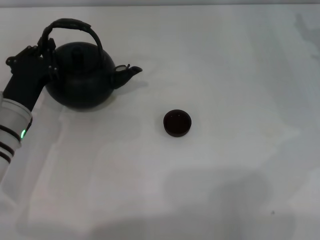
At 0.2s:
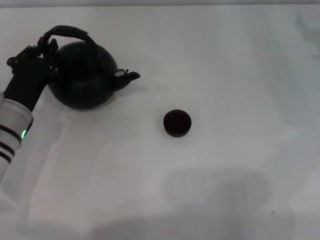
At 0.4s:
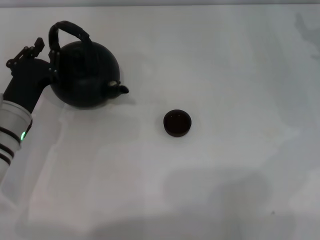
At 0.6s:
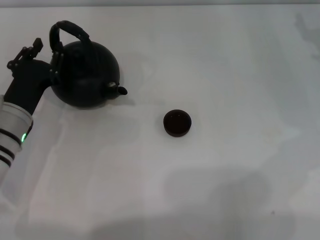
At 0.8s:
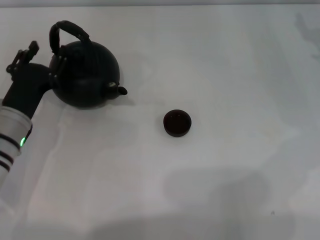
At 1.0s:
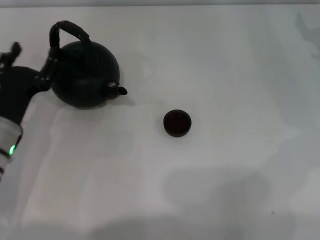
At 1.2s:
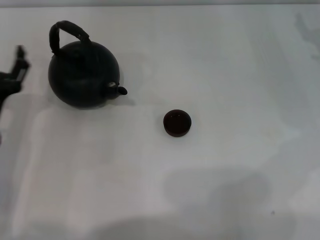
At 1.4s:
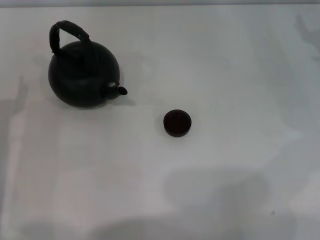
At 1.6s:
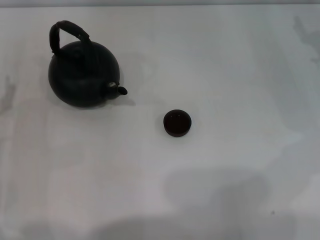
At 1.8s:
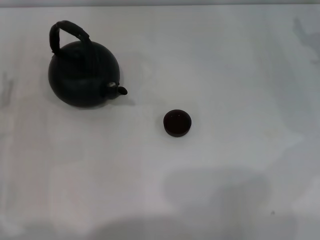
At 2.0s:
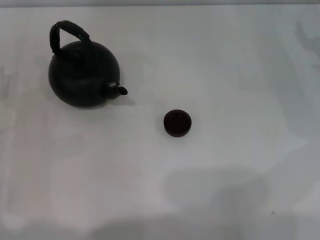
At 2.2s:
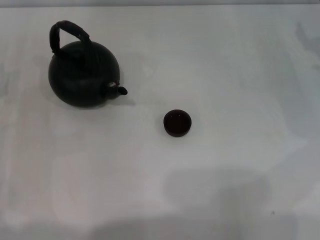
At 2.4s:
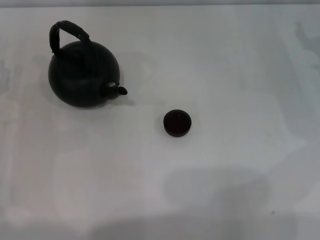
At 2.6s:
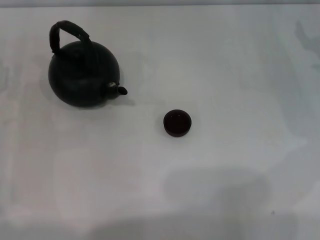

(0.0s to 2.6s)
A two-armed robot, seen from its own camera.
Task of the whole recording: Grasp the handle of the teapot with one hand and pour tea into the teacup.
0.0s - 1.2s: The left gripper opens up.
1.2s - 2.6s: The left gripper shifts about 5 cm to the left.

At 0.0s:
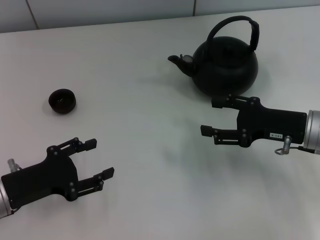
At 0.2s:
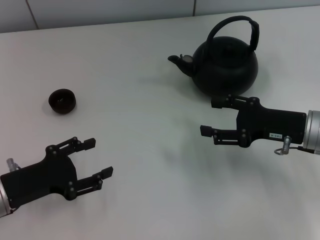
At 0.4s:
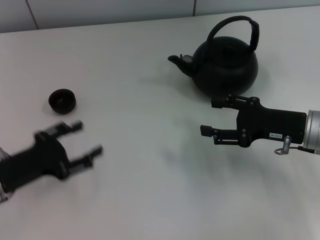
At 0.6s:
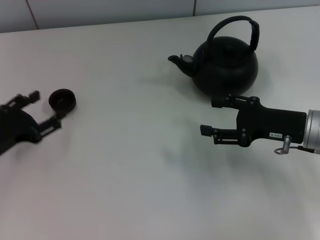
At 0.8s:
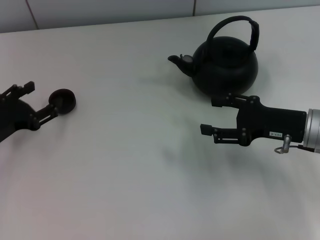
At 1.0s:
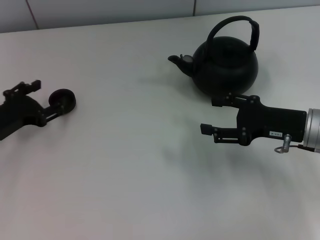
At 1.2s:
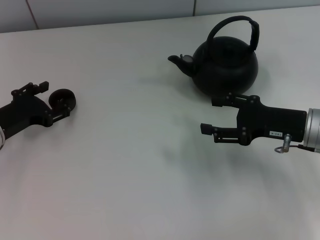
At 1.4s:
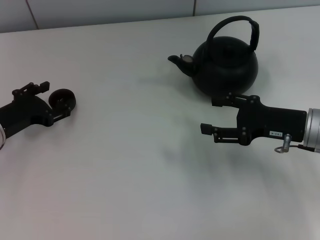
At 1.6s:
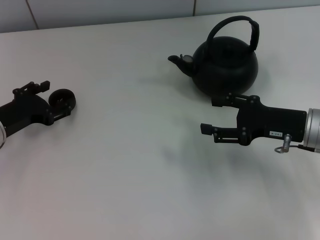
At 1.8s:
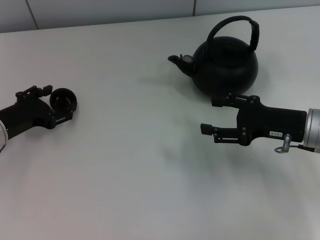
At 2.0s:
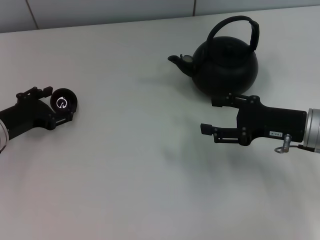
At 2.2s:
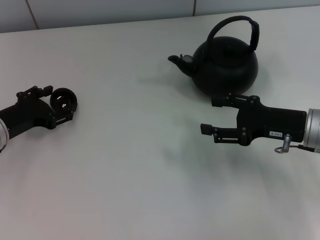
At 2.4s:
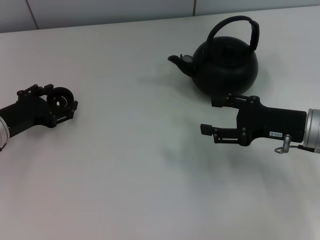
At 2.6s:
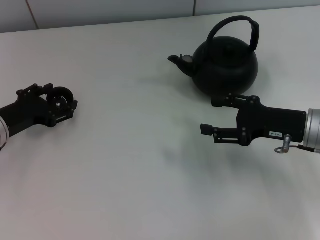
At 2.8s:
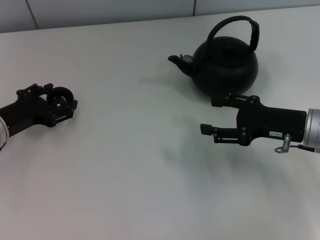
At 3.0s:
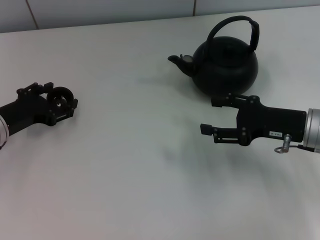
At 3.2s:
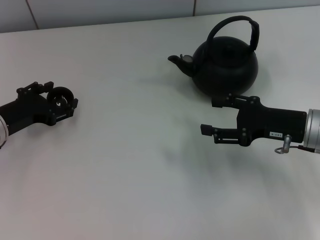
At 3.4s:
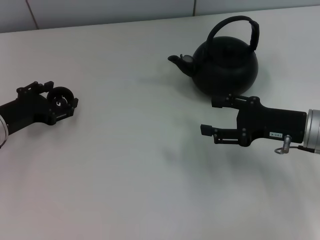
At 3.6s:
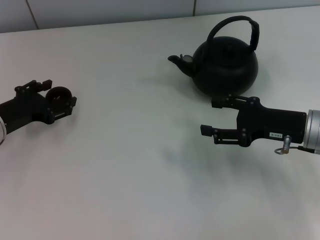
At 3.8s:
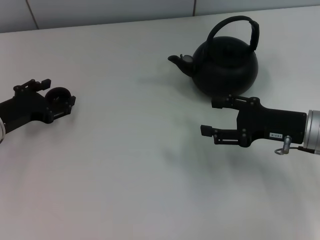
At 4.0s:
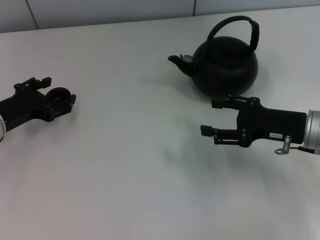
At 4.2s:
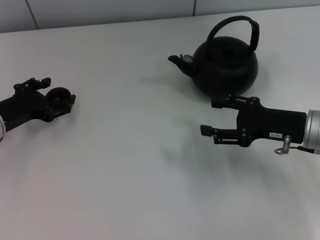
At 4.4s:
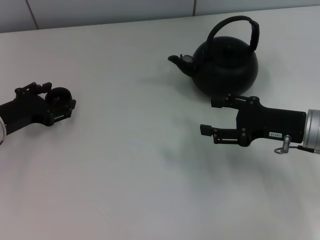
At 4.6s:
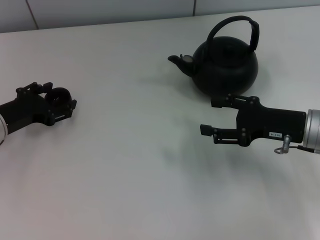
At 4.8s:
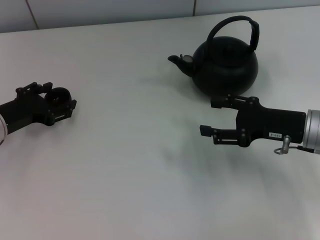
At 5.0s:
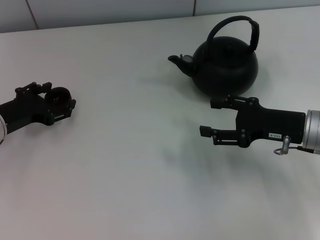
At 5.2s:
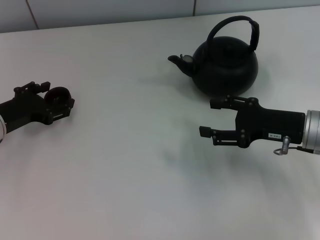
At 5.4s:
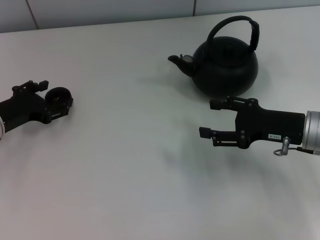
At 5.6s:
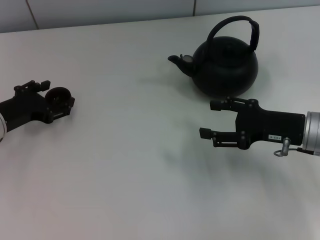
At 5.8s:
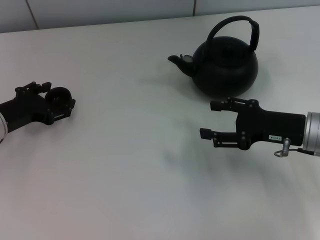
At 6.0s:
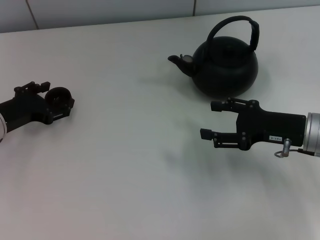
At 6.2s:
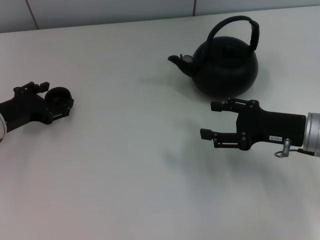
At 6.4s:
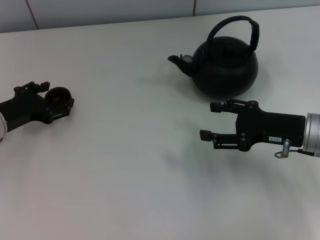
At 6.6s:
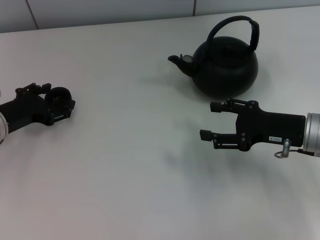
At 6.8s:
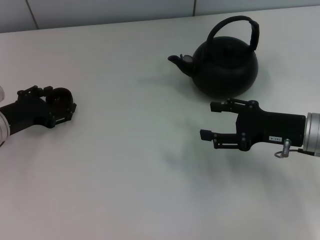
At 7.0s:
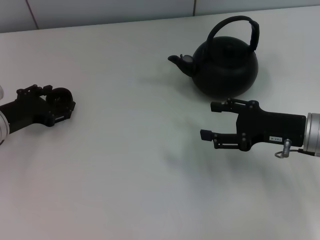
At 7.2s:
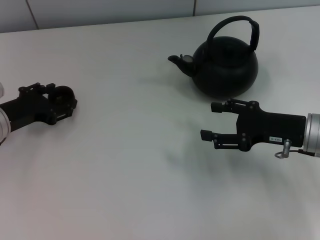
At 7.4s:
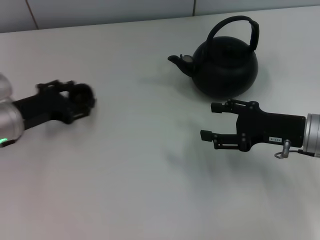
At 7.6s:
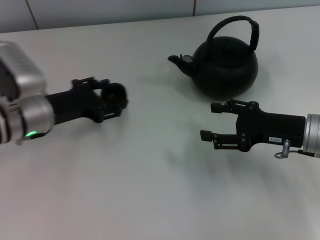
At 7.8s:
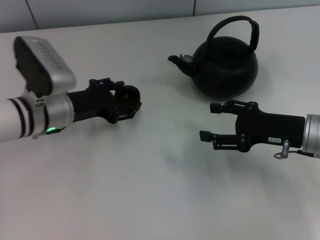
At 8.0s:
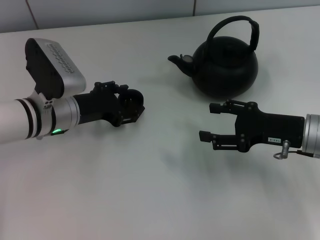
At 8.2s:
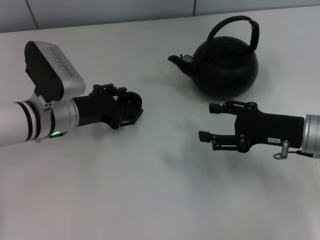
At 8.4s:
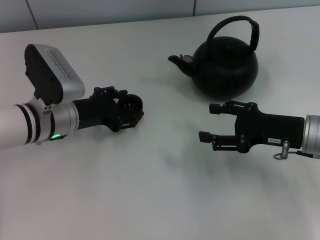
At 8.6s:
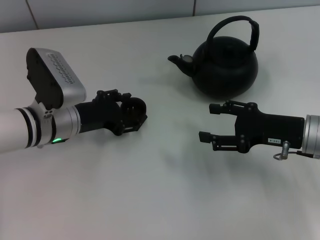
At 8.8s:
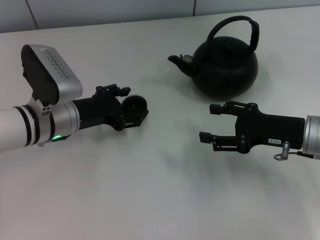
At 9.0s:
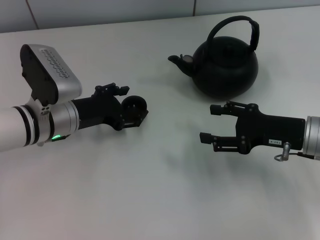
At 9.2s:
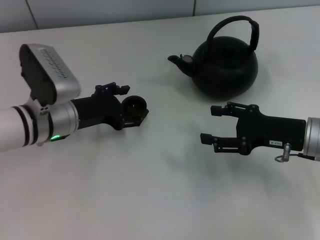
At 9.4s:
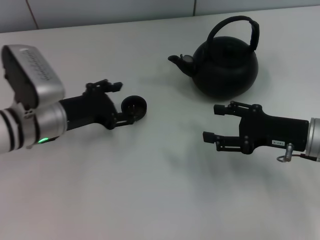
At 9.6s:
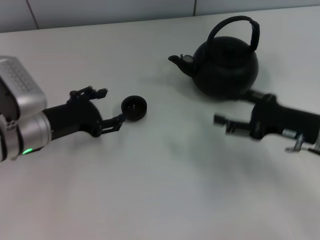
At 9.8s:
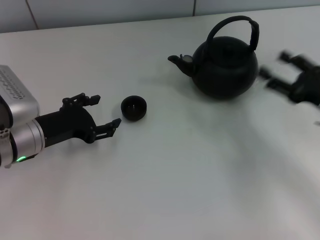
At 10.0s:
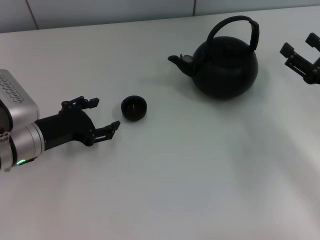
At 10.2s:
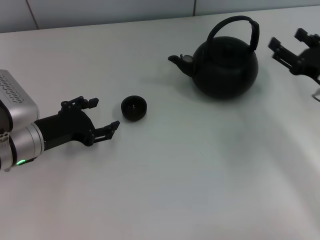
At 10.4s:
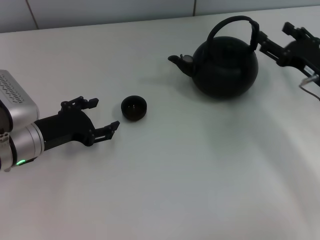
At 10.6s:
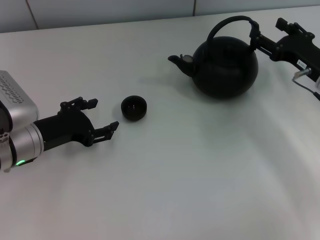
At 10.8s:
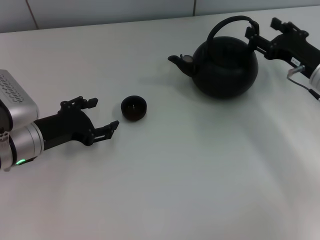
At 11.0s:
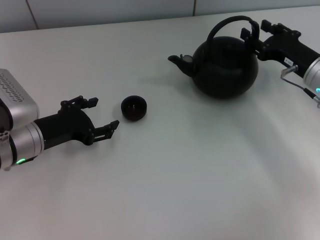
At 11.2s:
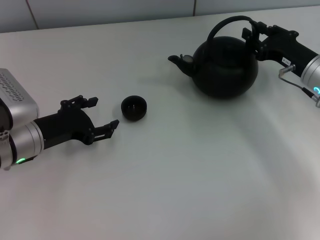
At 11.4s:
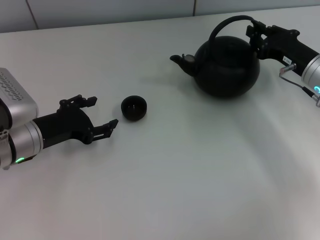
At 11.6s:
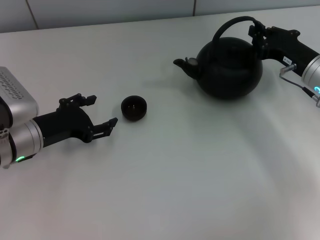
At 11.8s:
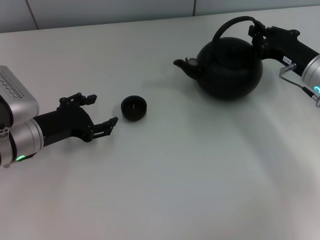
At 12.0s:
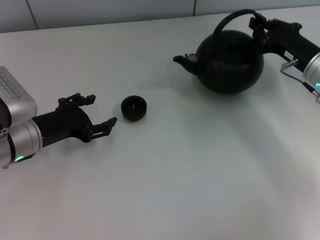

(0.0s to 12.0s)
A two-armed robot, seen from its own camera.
Task of the whole recording: Grasp the handle of the teapot with one hand and pour tea into the teacup.
Step, 0.0s - 7.6s: Pick up the teacup with the left gripper.
Step, 7.8s - 9.2s: Place the teacup in the center of view with the left gripper.
0.0s - 1.6s: The left gripper shifts approximately 10 cm forward.
1.6s - 4.4s: Both grippers stay about where they are.
4.4s - 6.0s: The two grippers keep their place.
6.0s - 7.6s: The left gripper shifts some 5 cm to the right.
7.6s - 9.0s: The grippers stay close to where they were, moving slightly.
9.0s - 10.4s: The left gripper ends up roughly 5 cm from where it was, while the right gripper changes place by about 5 cm.
10.4s - 12.0s: The right gripper closes its fingers.

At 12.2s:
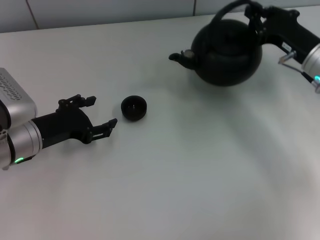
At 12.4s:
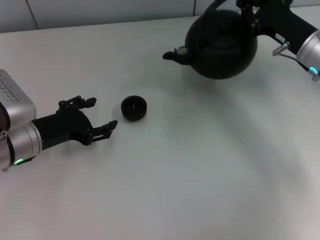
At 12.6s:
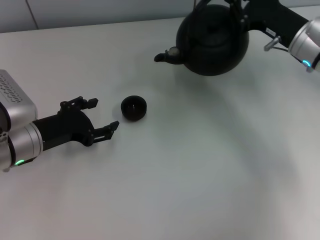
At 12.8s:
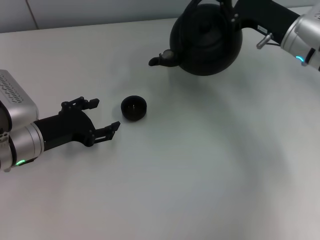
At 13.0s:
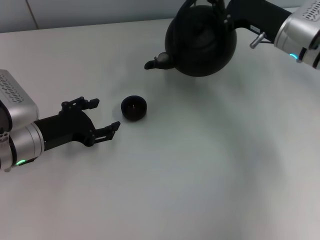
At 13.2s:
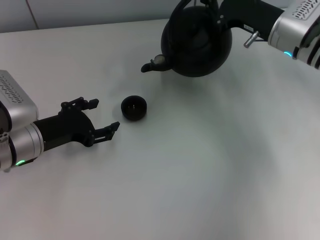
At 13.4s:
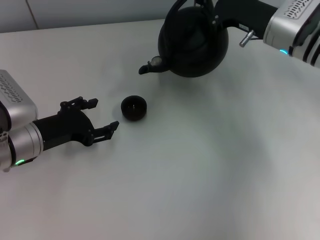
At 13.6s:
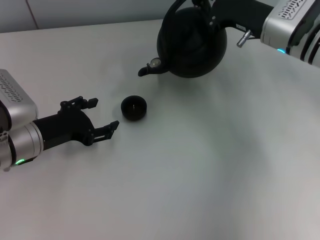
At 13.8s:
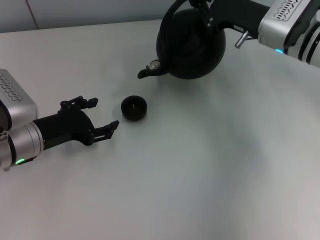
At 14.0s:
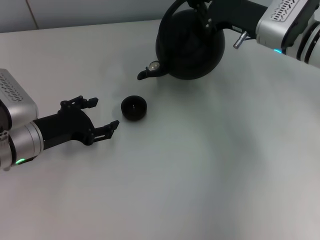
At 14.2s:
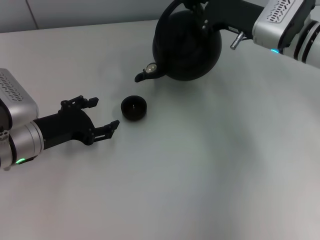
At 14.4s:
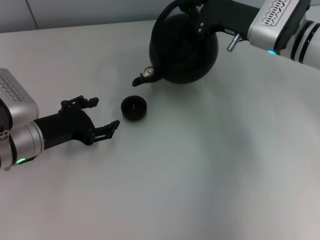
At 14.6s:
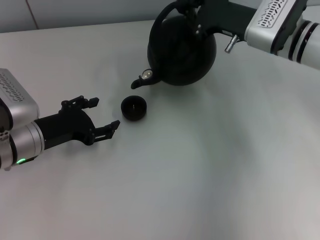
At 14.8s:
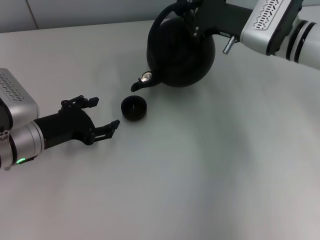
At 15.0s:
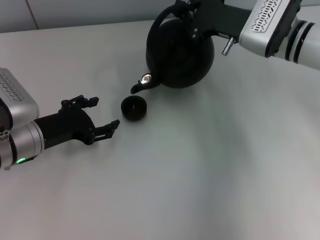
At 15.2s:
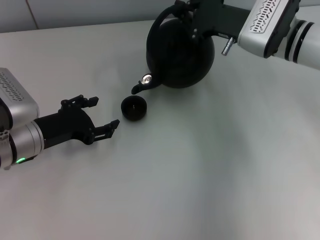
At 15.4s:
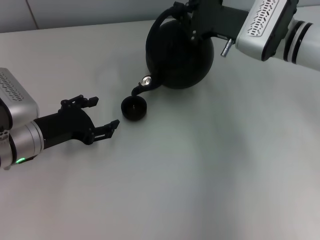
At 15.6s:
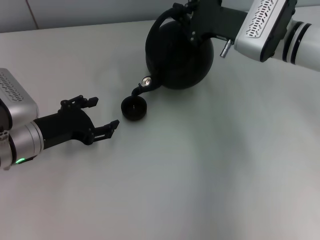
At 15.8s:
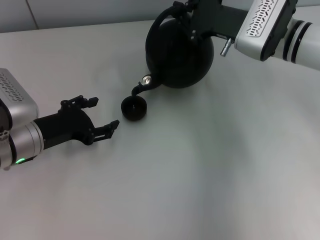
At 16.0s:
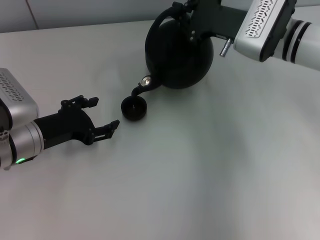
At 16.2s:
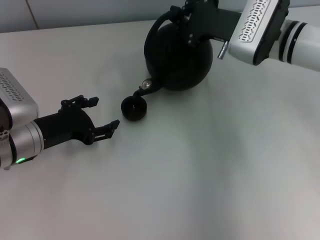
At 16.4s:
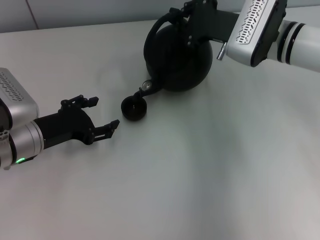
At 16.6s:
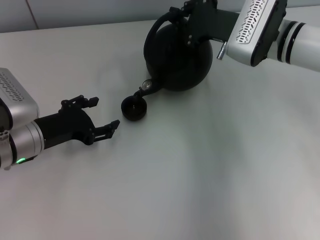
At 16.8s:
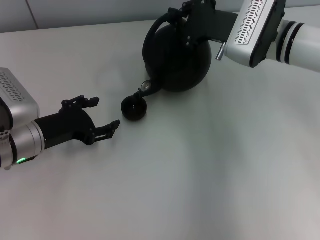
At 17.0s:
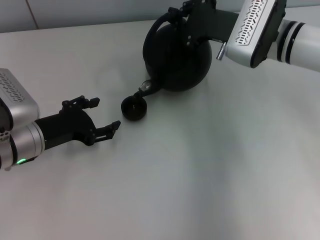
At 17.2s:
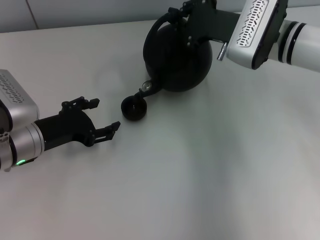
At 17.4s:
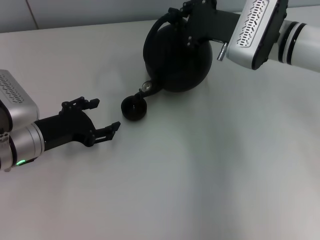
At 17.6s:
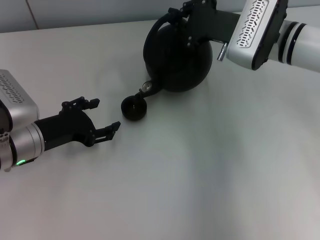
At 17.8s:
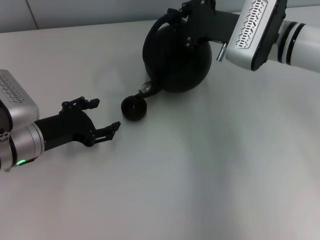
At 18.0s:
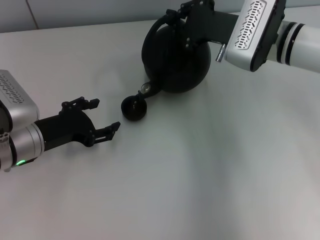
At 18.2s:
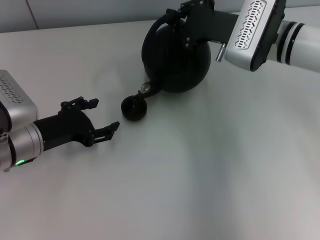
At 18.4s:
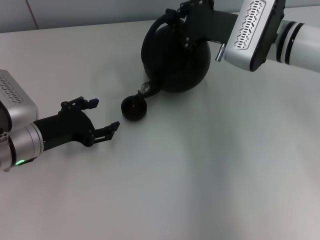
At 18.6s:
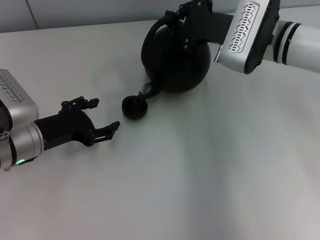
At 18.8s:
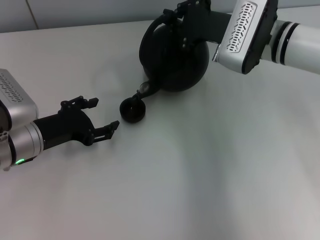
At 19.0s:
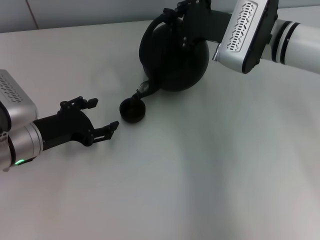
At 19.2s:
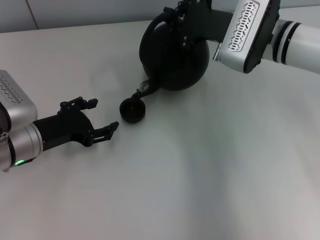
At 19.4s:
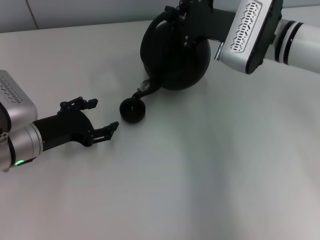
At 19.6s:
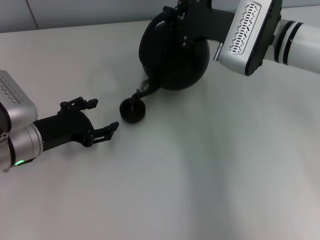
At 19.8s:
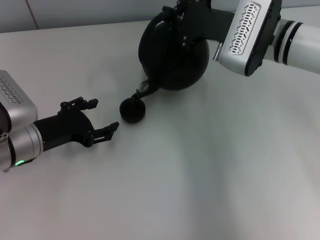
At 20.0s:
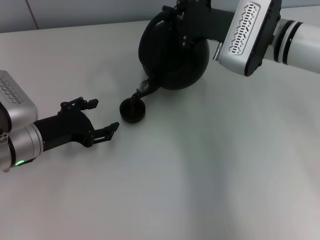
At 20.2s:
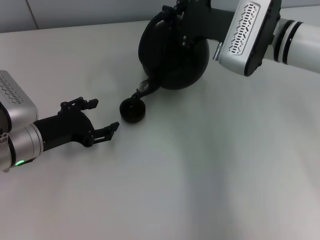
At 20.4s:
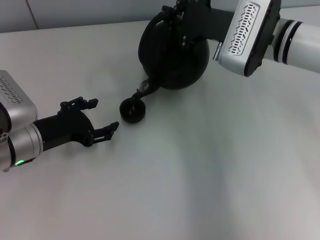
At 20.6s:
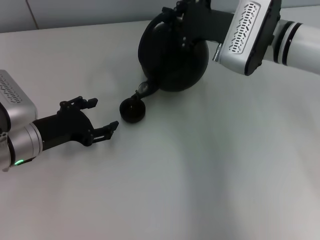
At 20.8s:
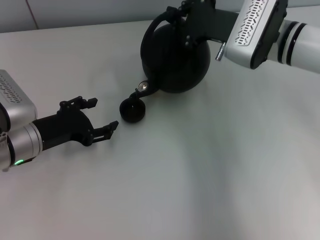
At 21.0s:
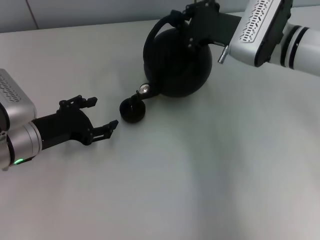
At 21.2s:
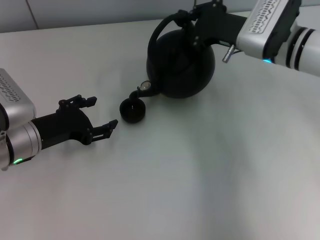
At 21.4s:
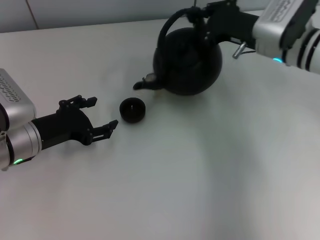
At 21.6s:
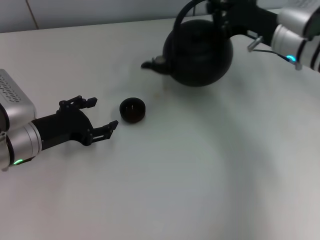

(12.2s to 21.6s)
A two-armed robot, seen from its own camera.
Task of the whole recording: Grasp the handle of the teapot with one hand and pour tea into the teacup.
12.2s - 13.8s: The right gripper travels to the left by about 5 cm.
13.8s - 17.0s: The grippers make only small movements.
17.0s - 18.4s: Both grippers stay about where they are.
18.4s - 20.0s: Both grippers stay about where they are.
20.0s - 21.6s: The right gripper shifts roughly 5 cm to the right.
